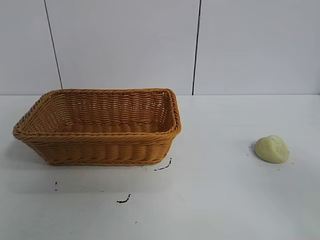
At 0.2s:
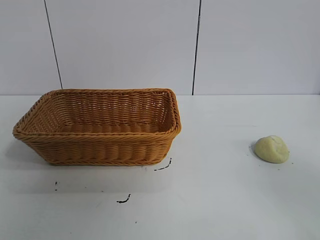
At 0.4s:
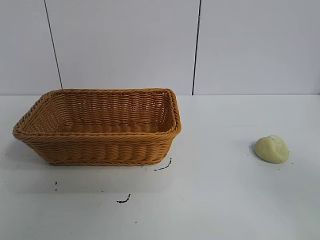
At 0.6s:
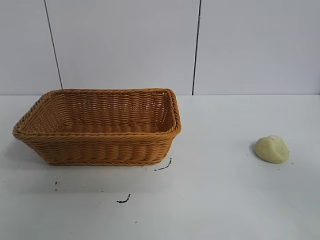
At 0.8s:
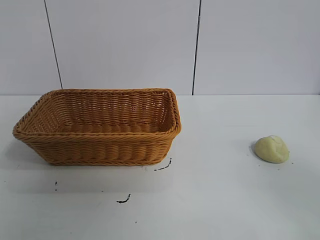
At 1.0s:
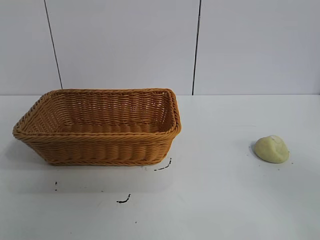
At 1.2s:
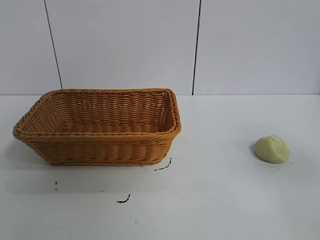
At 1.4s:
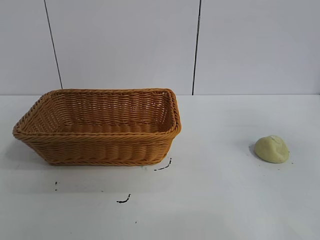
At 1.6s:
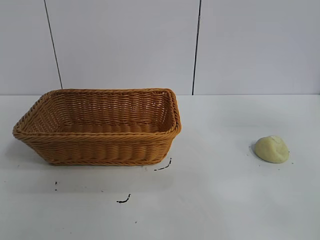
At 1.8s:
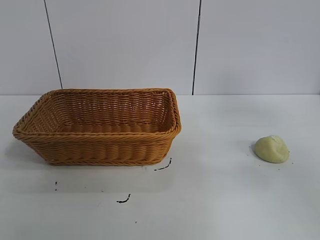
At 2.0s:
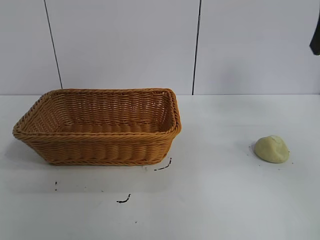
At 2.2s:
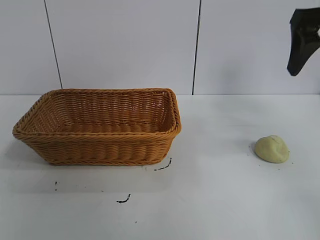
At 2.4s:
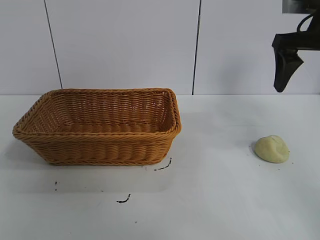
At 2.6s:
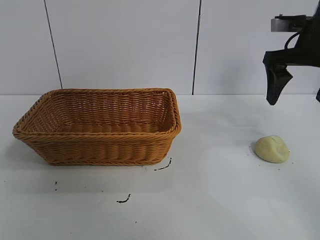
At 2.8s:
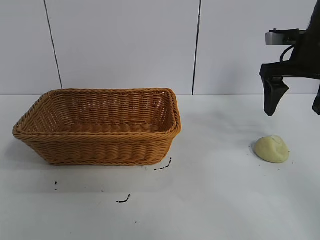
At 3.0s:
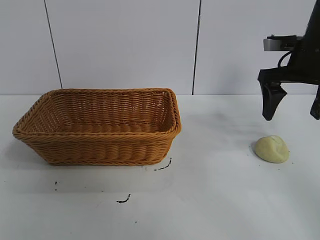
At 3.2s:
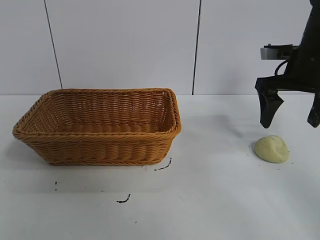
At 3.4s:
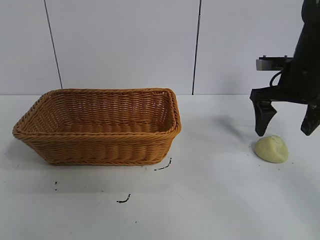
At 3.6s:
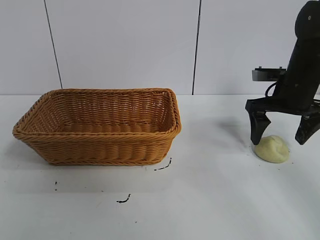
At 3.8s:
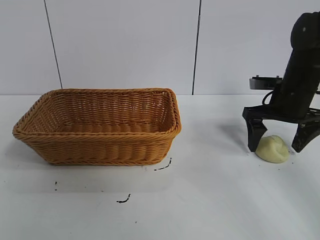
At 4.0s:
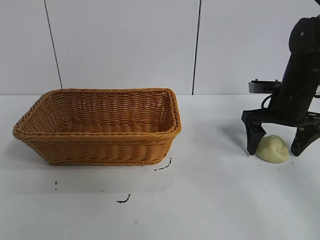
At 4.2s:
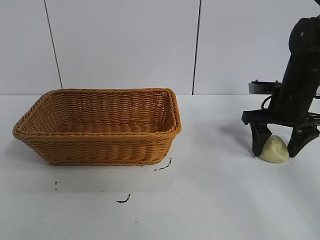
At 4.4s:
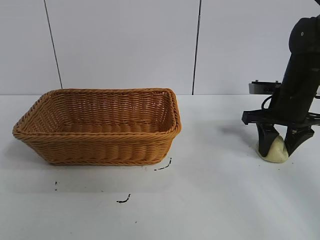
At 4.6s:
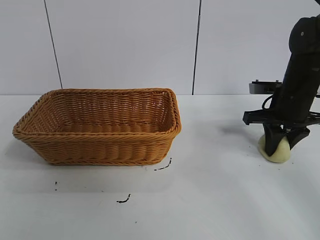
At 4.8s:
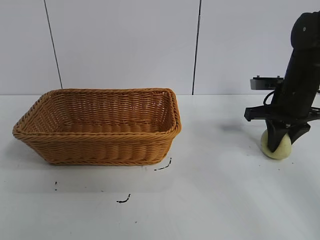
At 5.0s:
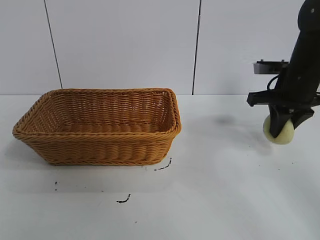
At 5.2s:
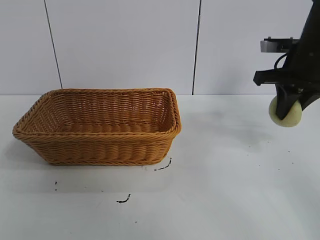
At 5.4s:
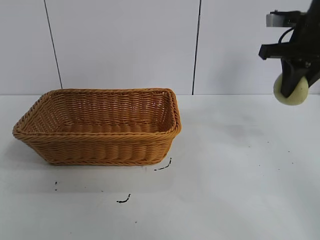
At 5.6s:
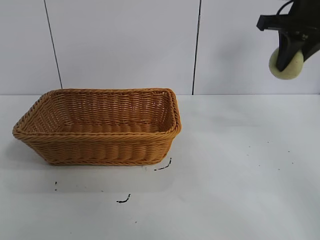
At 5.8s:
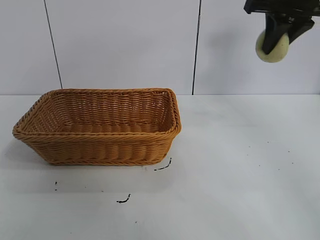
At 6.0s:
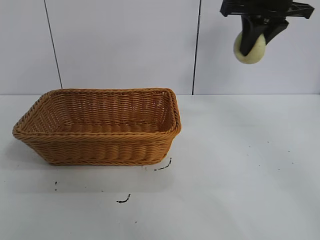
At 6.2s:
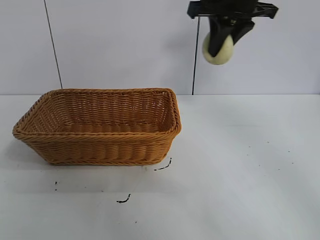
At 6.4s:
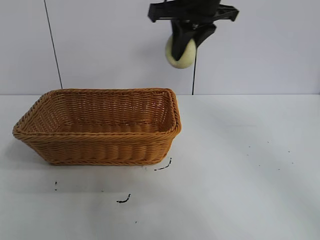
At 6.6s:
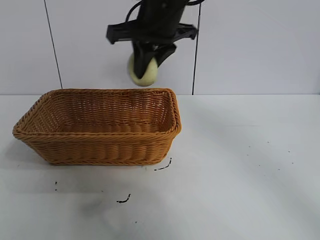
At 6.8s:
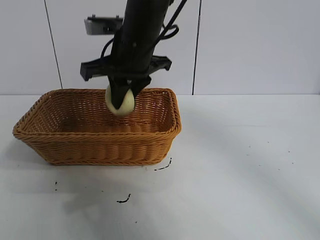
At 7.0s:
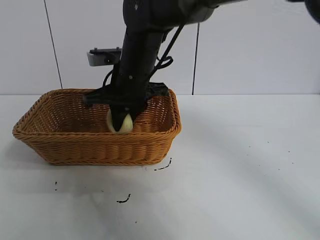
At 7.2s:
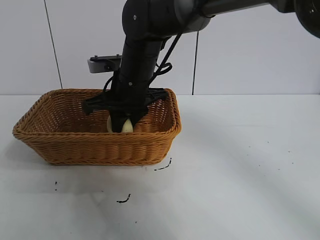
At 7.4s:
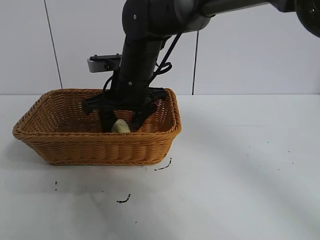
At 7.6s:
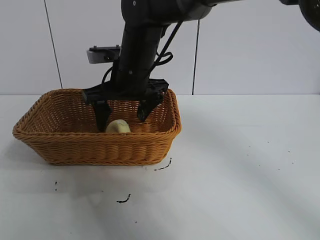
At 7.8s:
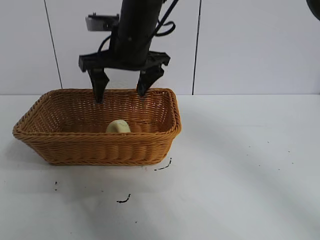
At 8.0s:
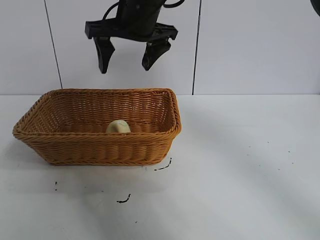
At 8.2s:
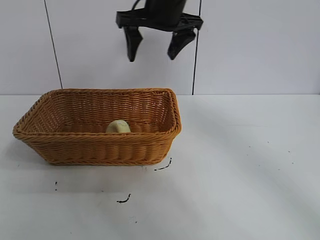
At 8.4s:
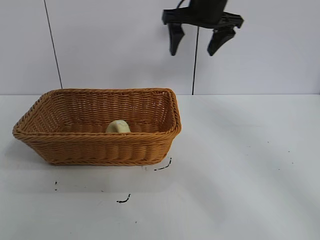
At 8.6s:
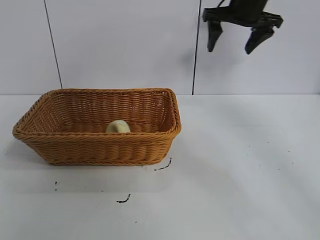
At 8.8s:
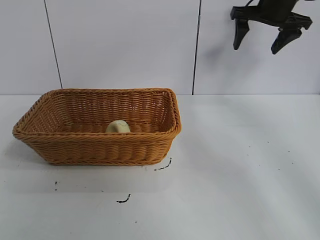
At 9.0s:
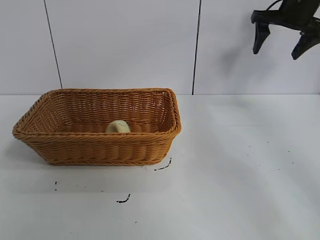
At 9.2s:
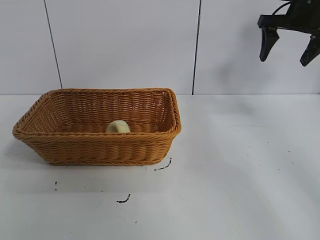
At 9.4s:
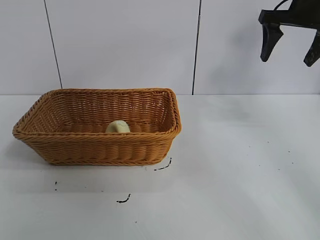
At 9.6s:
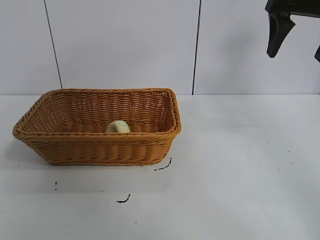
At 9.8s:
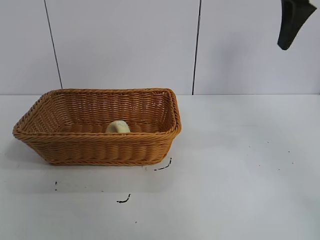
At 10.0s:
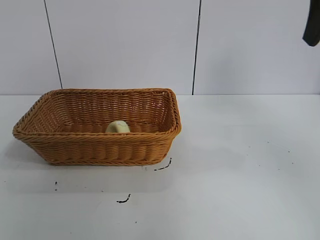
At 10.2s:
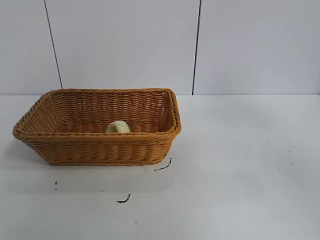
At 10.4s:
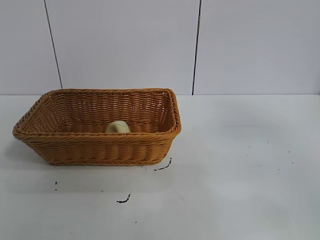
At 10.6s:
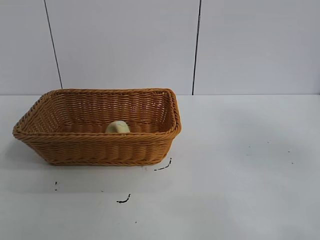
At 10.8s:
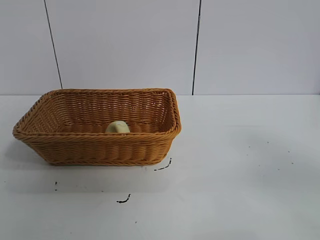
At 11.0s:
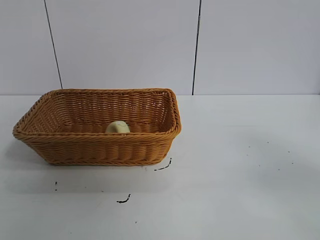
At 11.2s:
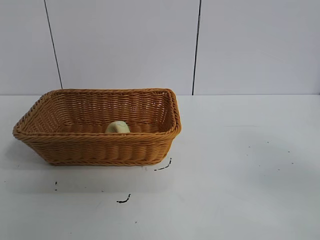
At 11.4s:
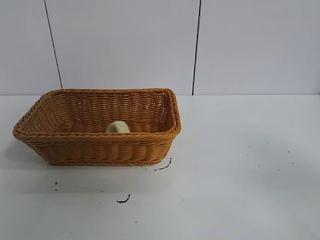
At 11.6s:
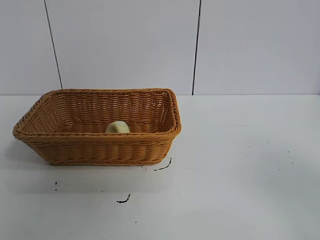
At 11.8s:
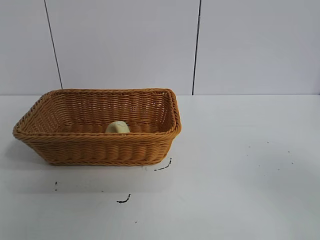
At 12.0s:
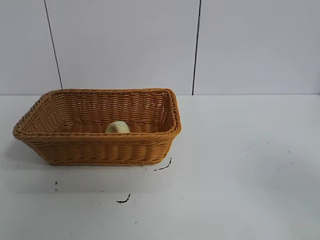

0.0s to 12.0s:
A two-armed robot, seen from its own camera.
Task of the whole recording: pick up the egg yolk pastry and put it into the basket.
Step, 0.8s to 4.4s: Grasp egg yolk pastry with right gripper.
Step, 4.6s to 7.2s: Place the egg yolk pastry in the basket with right gripper.
